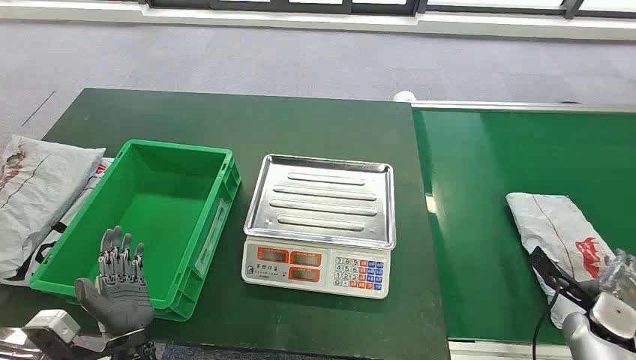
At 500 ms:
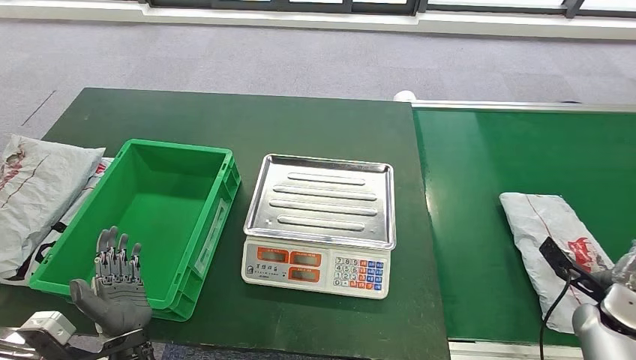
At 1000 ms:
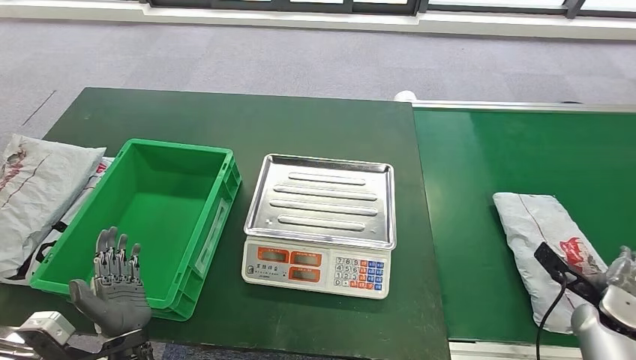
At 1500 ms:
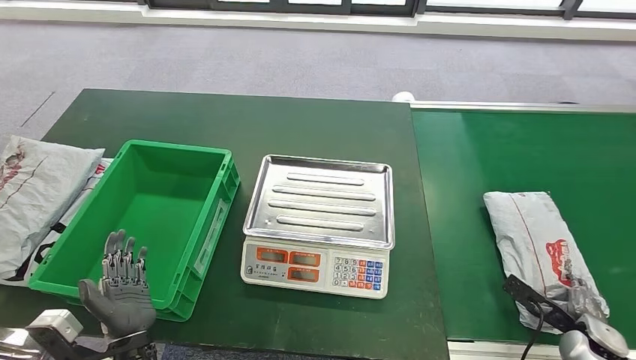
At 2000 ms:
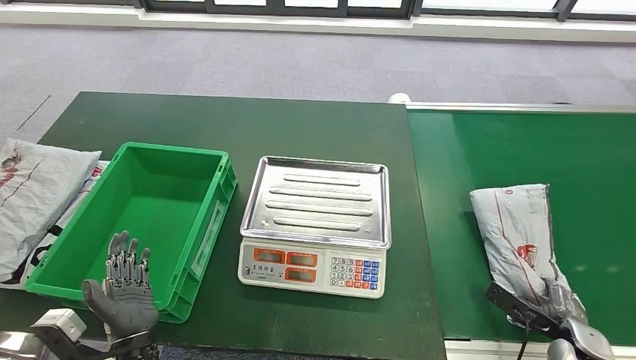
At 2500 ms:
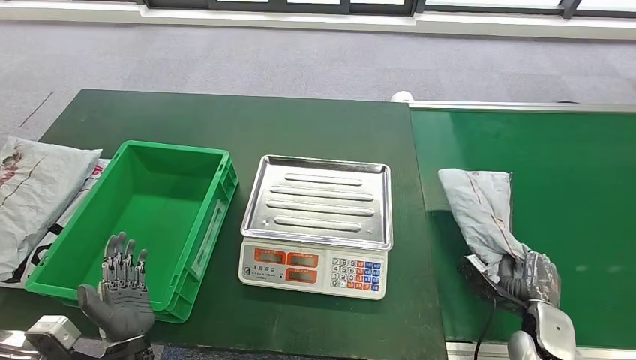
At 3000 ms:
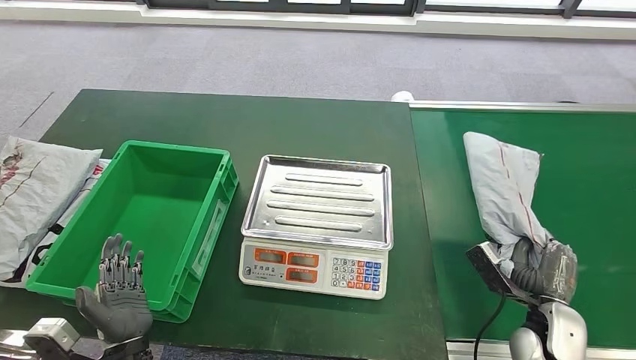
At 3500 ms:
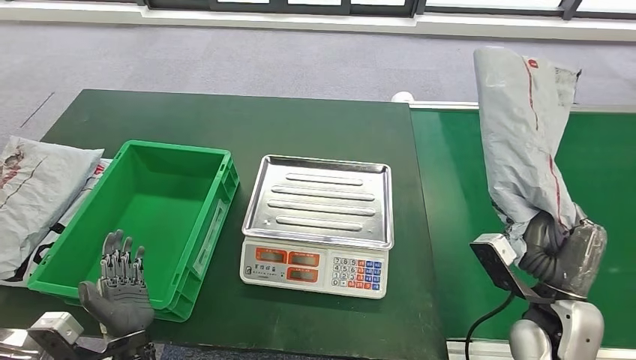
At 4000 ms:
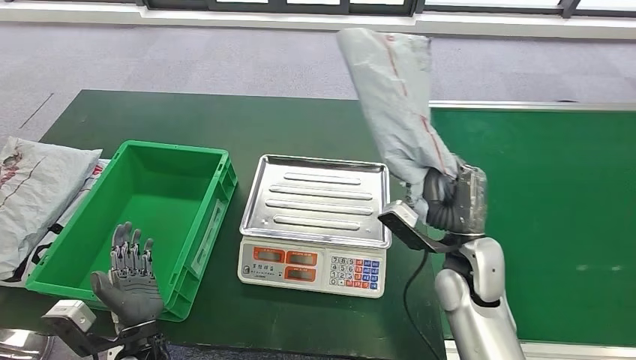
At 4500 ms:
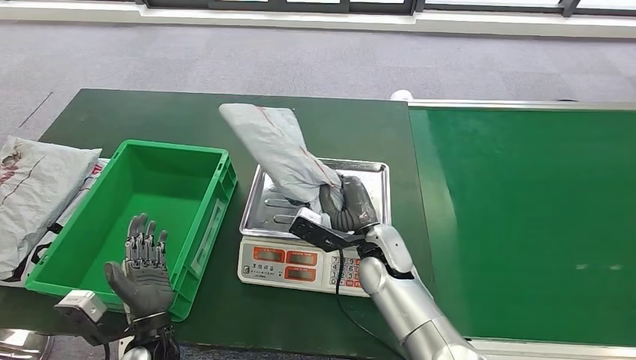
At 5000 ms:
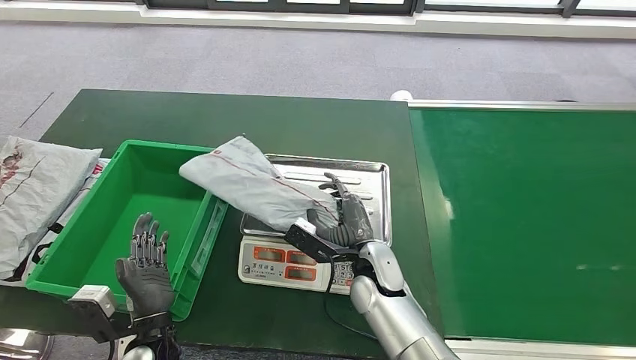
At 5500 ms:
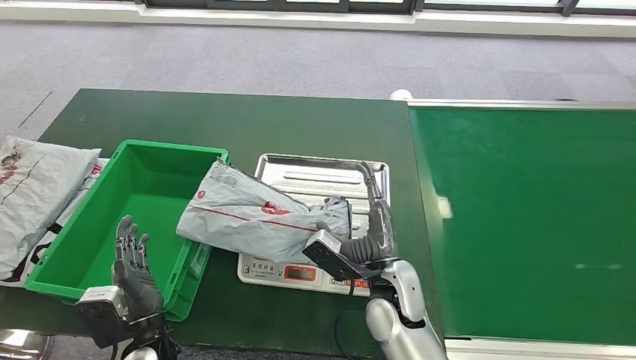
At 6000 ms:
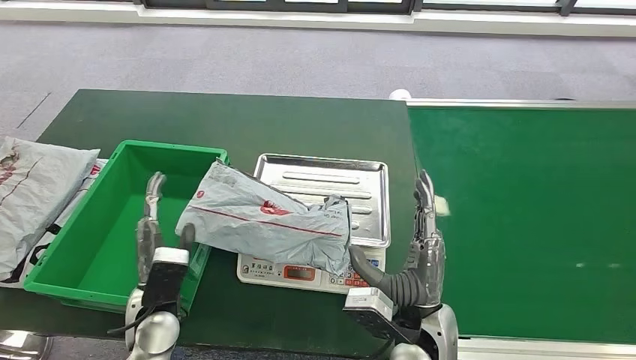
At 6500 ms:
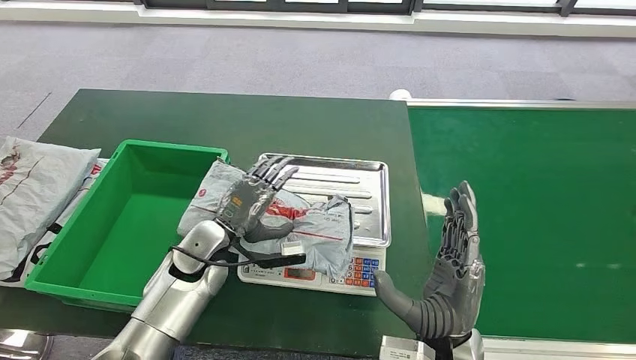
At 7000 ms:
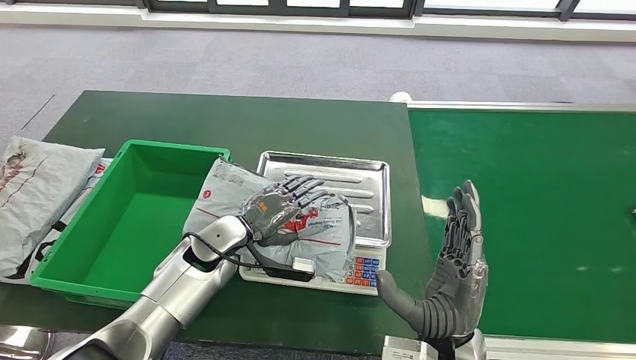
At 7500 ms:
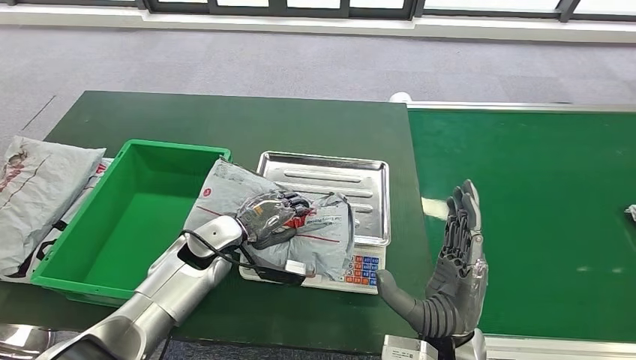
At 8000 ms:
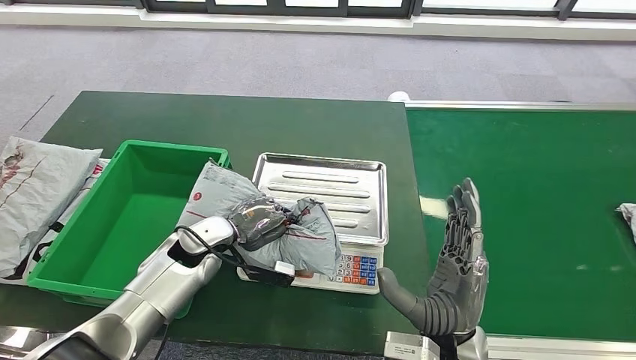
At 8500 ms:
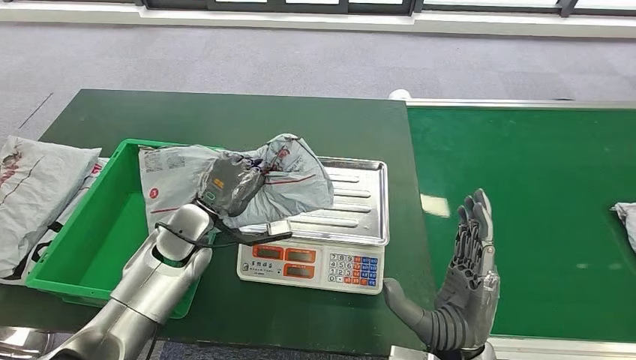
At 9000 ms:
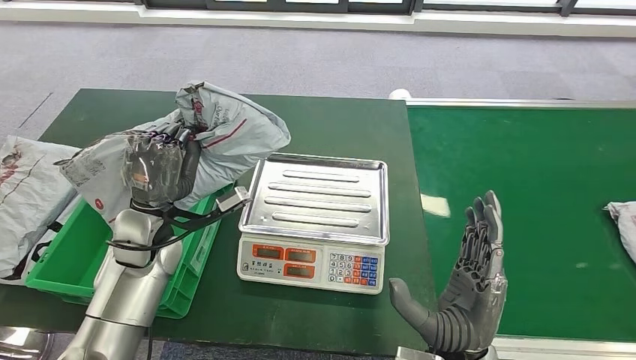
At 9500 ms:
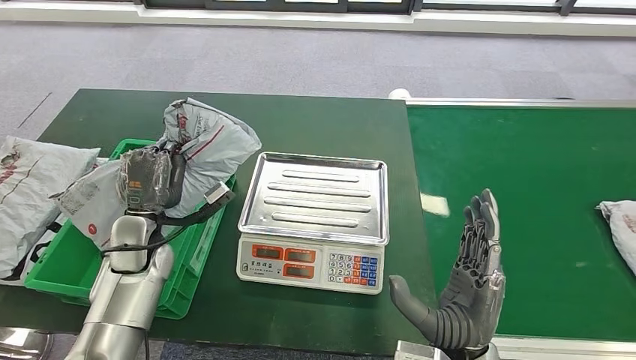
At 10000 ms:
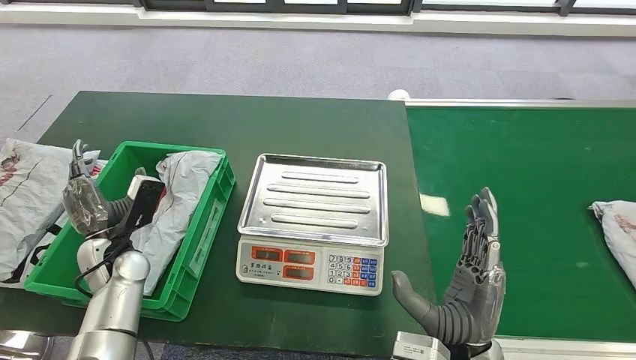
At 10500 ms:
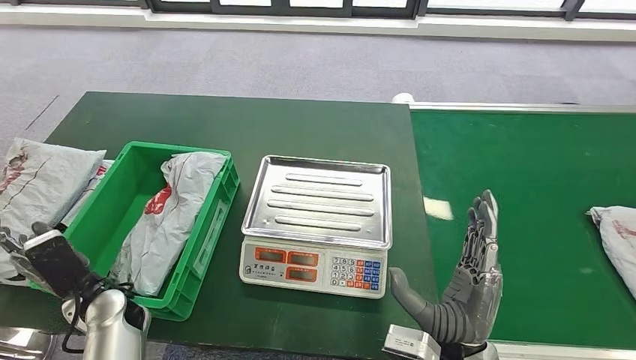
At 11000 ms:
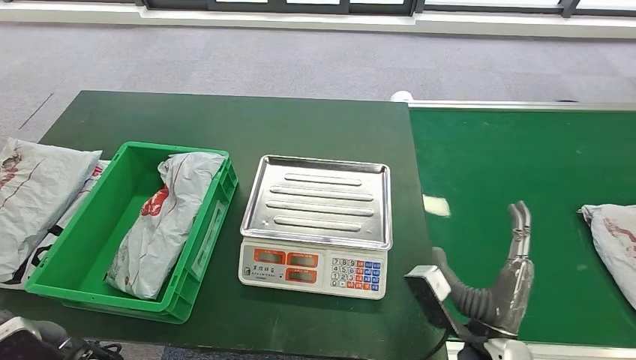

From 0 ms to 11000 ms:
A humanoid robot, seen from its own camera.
Step, from 0 ms to 3500 ms: Take the parcel off the conveyor belt.
Step, from 4000 ms to 6000 ms: Place the parcel onto the inbound machine.
Step, from 7000 ms to 9000 ms: Pick up the parcel from the inbound machine.
Step, from 9500 ms to 11000 ms: Put the parcel inside the courier box.
